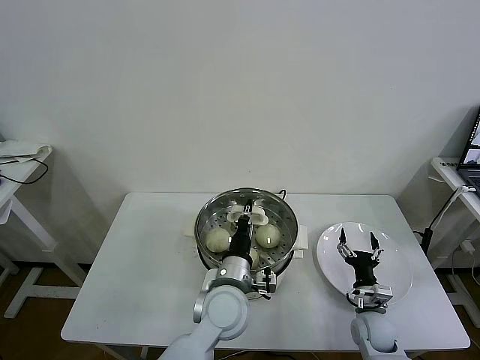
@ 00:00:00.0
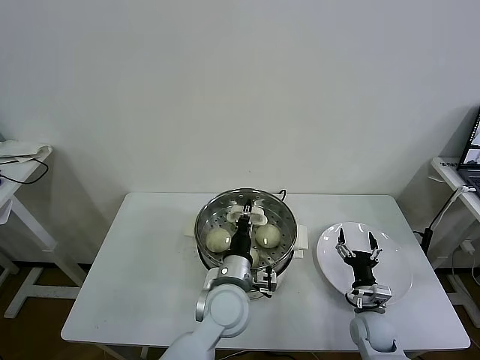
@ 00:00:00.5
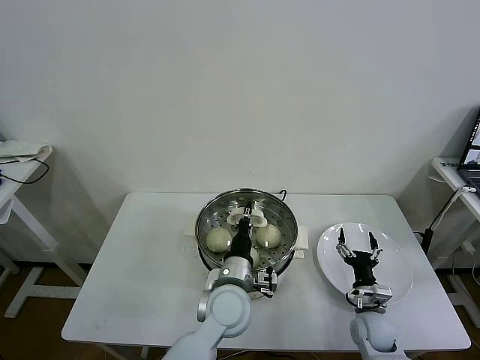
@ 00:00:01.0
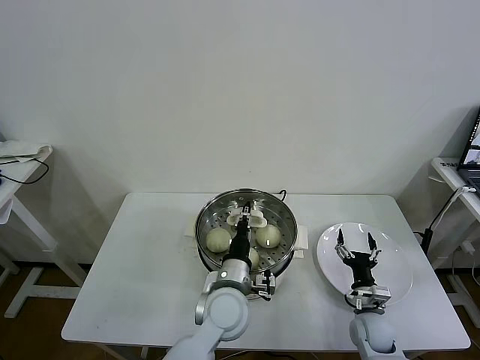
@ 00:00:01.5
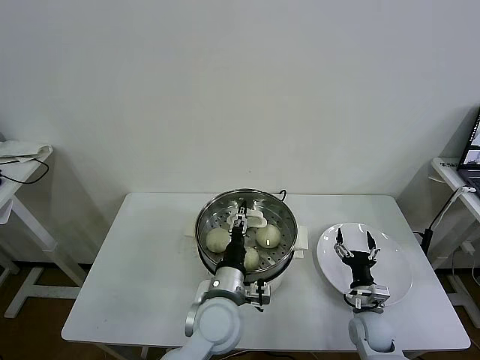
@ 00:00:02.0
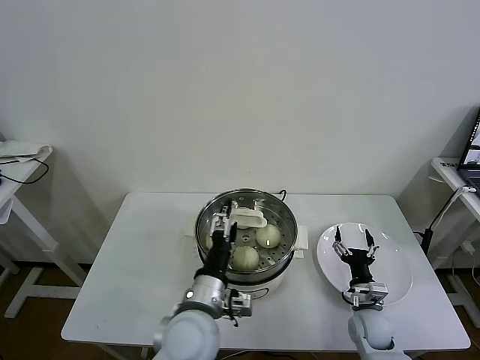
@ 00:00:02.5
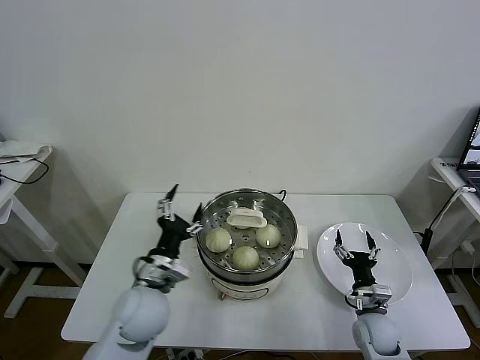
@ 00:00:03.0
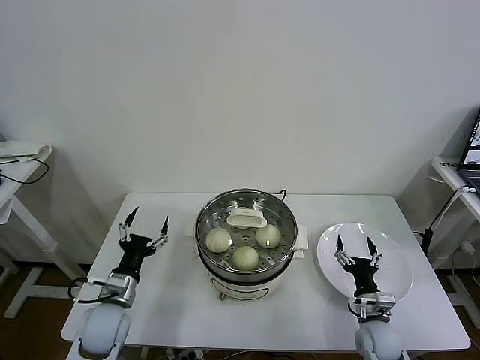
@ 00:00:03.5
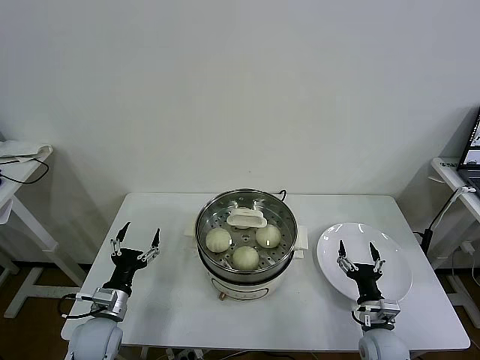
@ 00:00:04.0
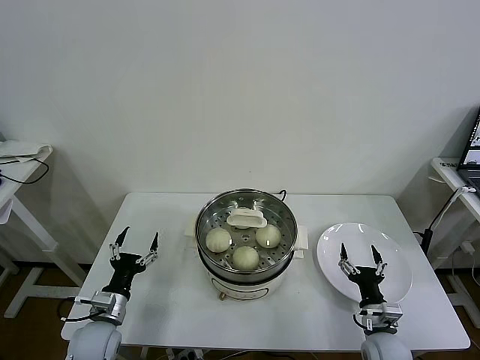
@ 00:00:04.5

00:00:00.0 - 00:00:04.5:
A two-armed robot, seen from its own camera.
Task of the whole recording: take steamed baozi put them in steamer then cover it.
Step, 00:00:00.0 - 00:00:02.0: Place the pot lid on the steamer with left gripper.
00:00:00.0 - 00:00:02.0: The left gripper opens its fingers.
00:00:02.0 - 00:00:04.5: The right gripper is displaced backward by roughly 5 cm. Meanwhile the left gripper heads to the left, covering roughly 25 cm, and opens its fingers.
